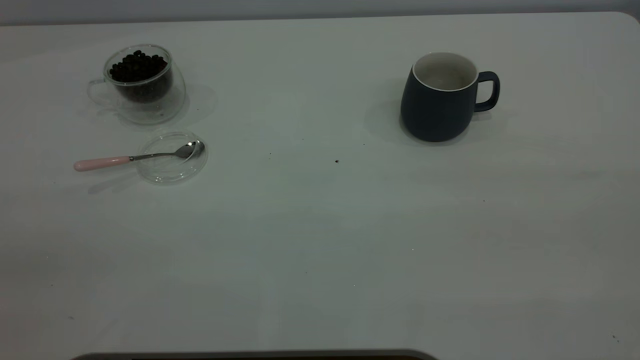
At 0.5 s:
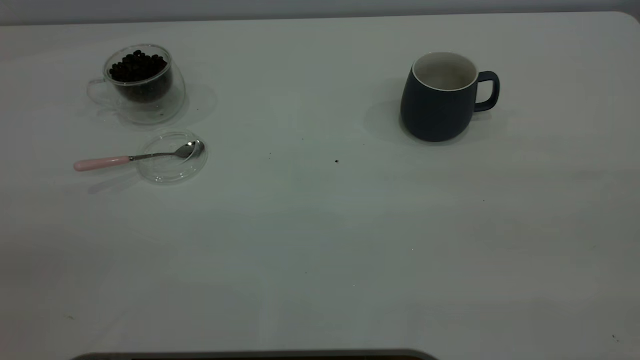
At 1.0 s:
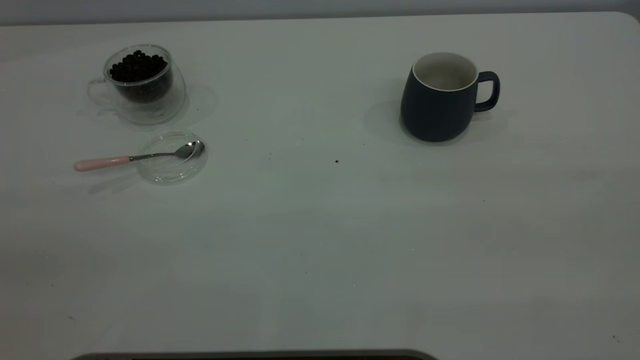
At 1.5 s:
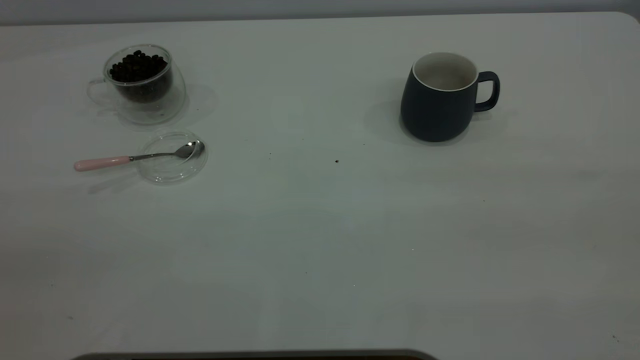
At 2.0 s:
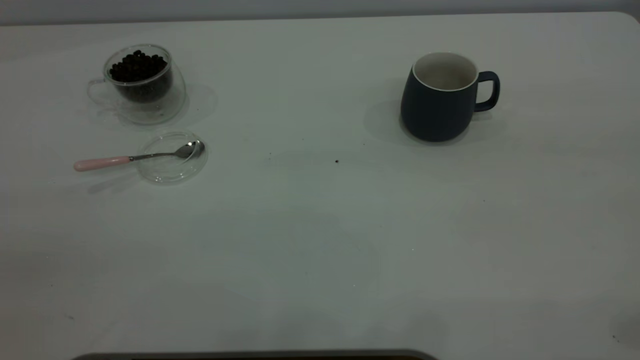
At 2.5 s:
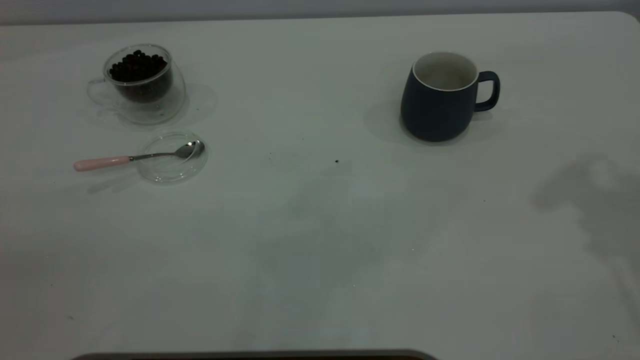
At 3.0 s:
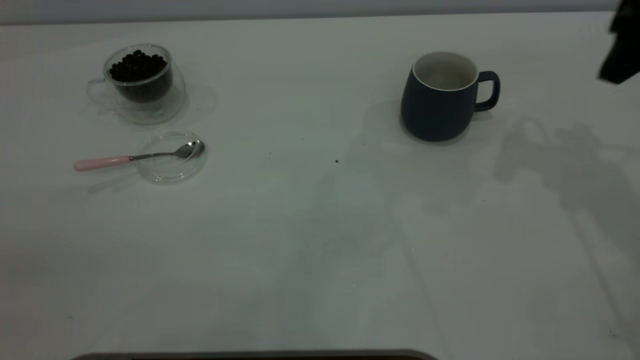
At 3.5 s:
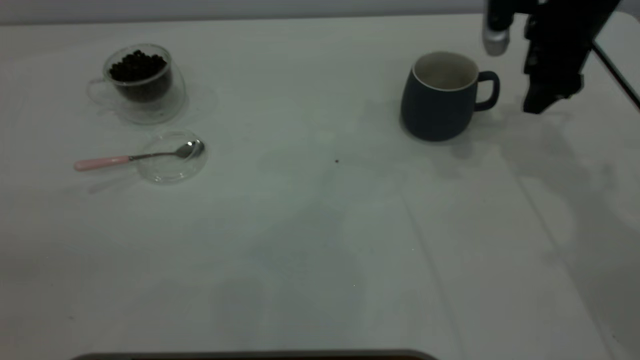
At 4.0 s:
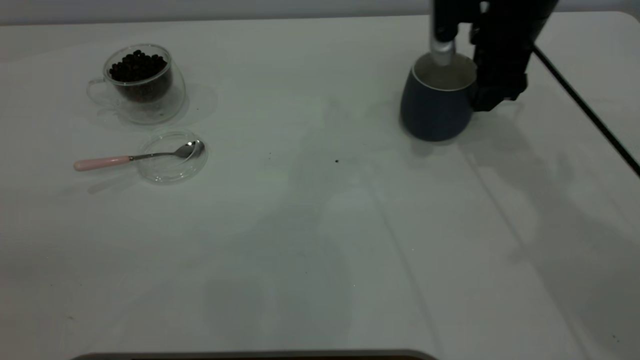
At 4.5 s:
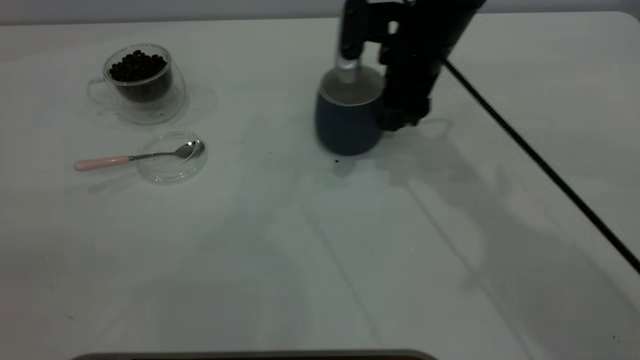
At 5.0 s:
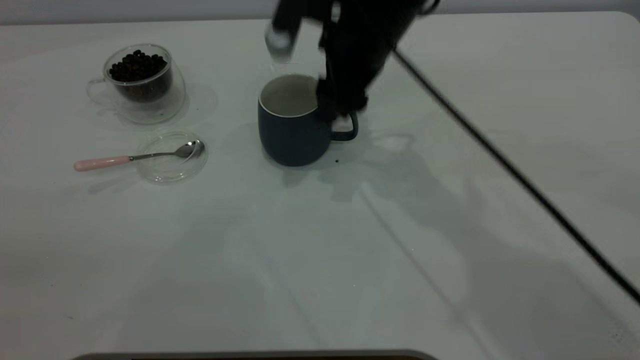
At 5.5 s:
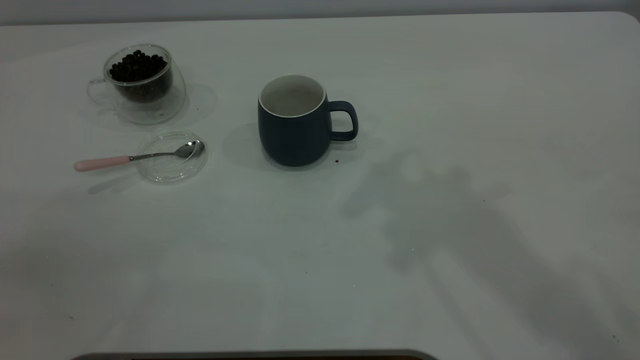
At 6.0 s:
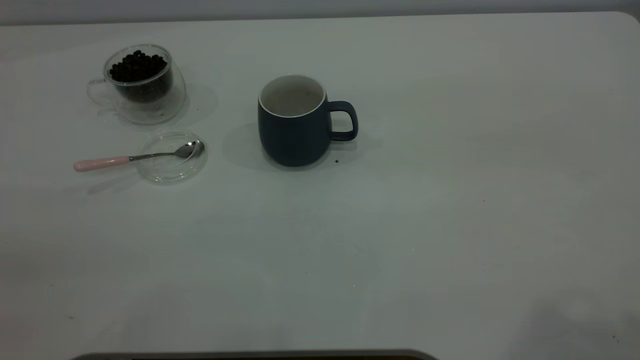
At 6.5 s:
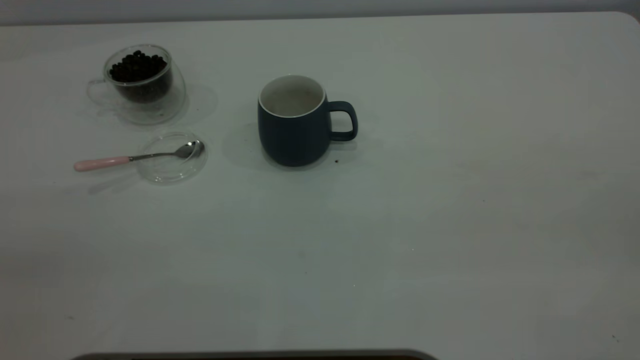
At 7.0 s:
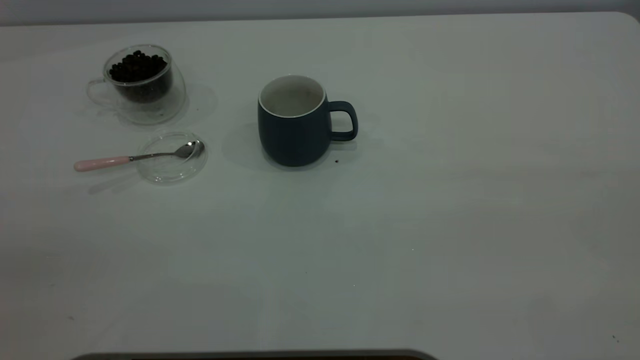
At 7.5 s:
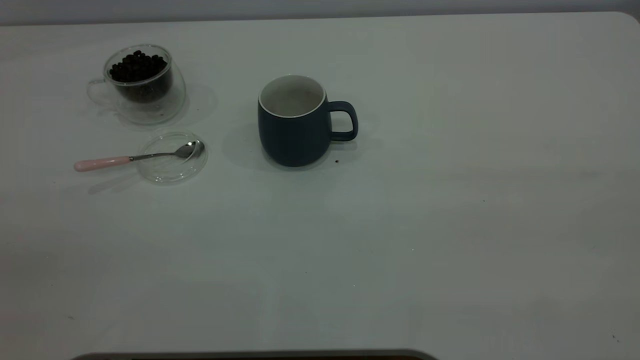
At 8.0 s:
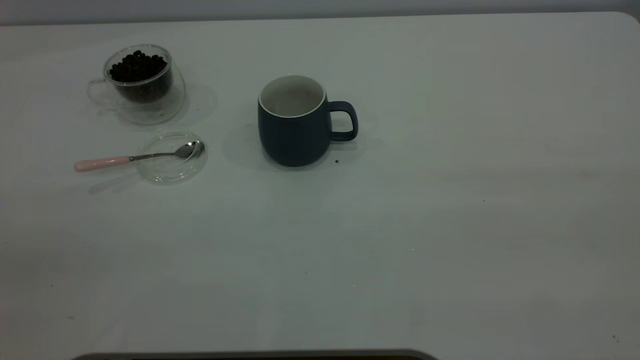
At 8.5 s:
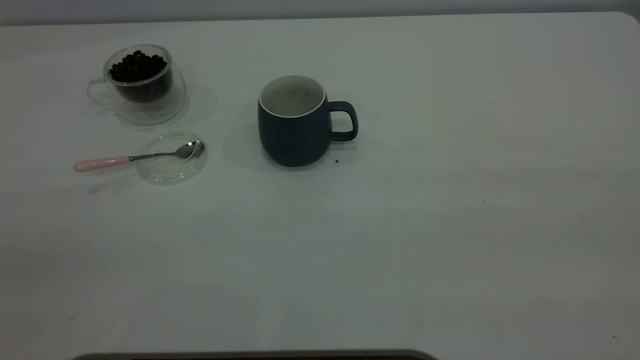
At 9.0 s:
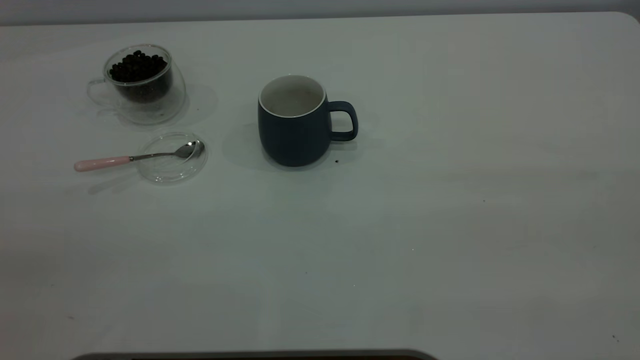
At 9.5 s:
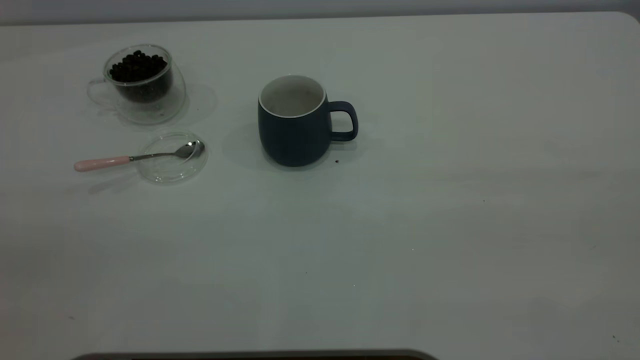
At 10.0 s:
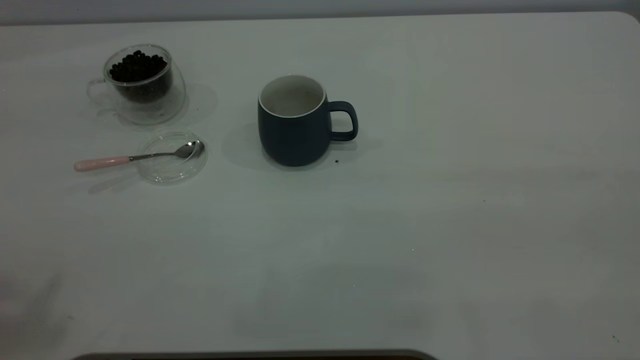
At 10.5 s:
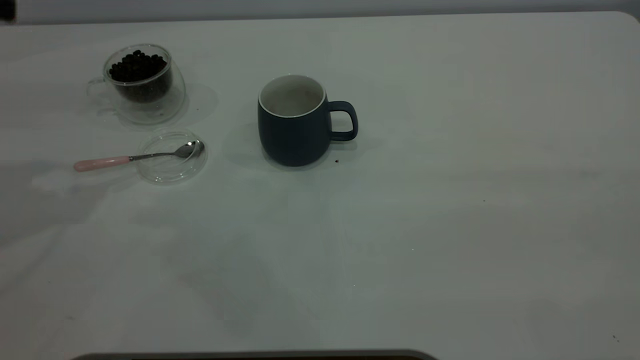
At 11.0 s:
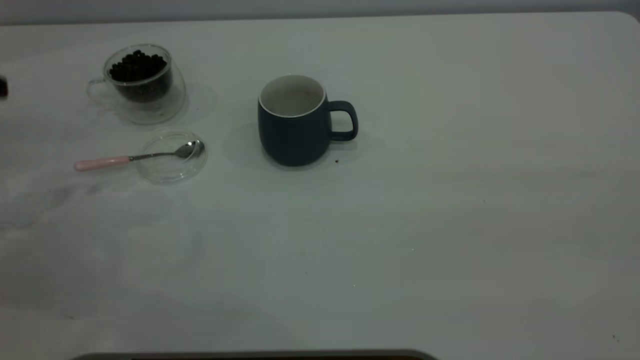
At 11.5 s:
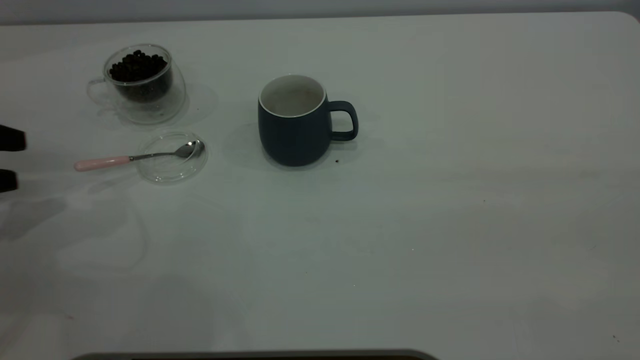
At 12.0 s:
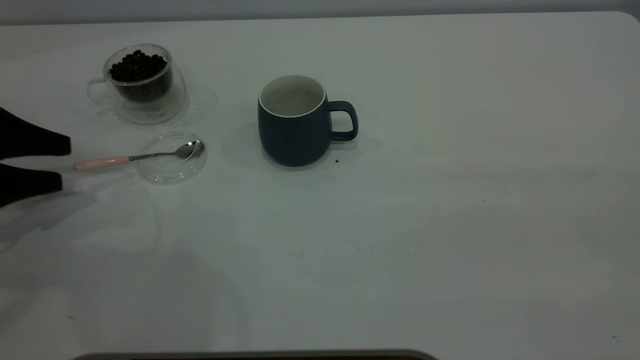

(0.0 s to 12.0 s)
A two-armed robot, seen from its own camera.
Task of the whole recording: the right gripper place the grey cup in the center of the table, the left gripper take the pink spoon from the cup lid and scoop out the coffee beans from the coffee cup and put them into the grey cup, the left gripper put the spoon back into the cup lid.
Step, 0.0 s - 5.0 s: Move the cup to the center of view.
2.0 s - 4.0 s: The right gripper moves forward and downward, approximately 40 cm.
4.0 s - 6.0 s: The right gripper heads backward and upward, covering roughly 50 cm.
10.0 s - 12.0 s: The left gripper heads downward, covering some 35 cm.

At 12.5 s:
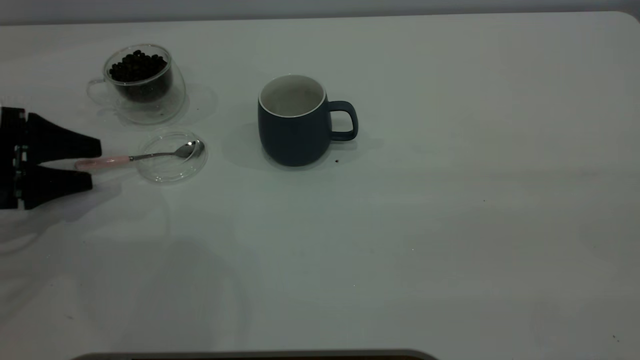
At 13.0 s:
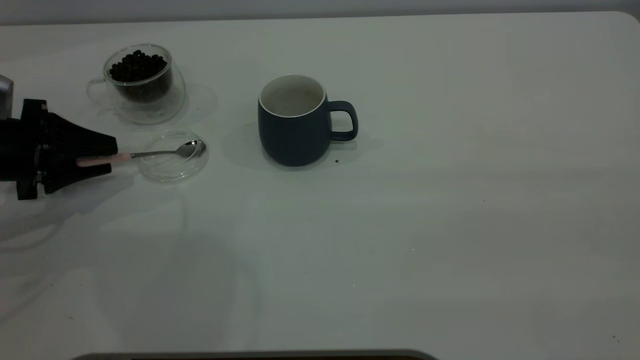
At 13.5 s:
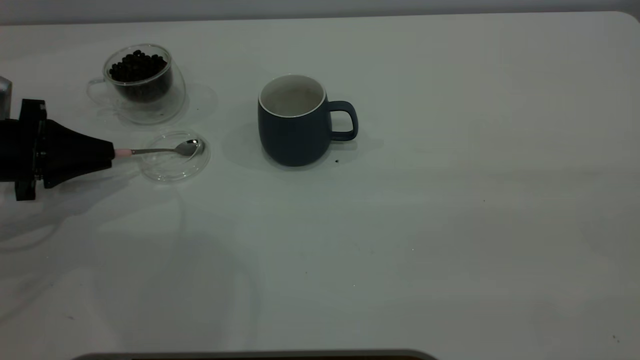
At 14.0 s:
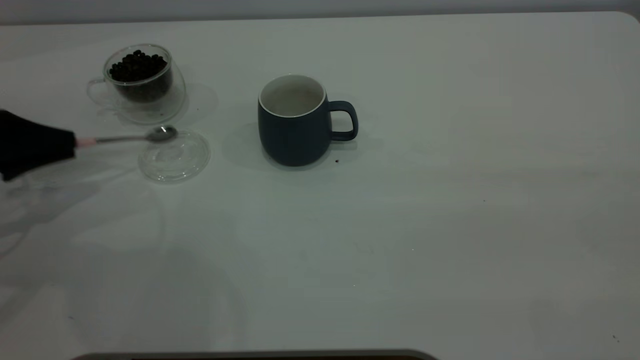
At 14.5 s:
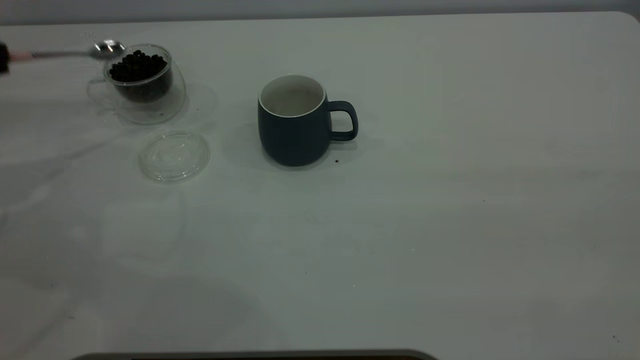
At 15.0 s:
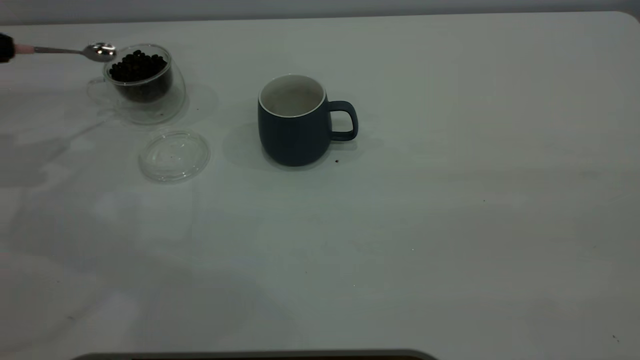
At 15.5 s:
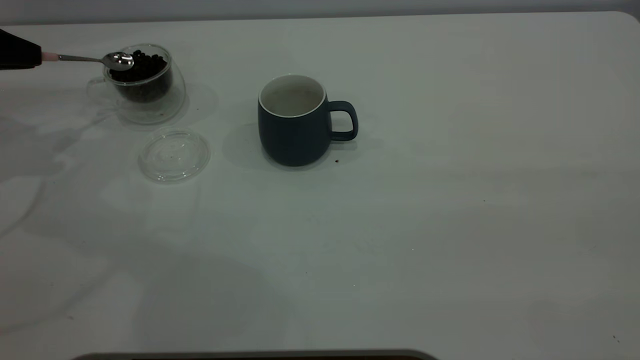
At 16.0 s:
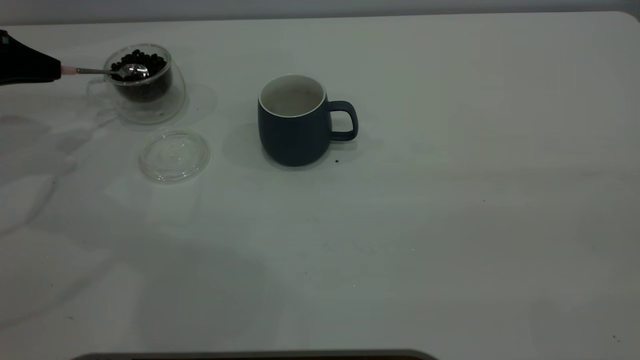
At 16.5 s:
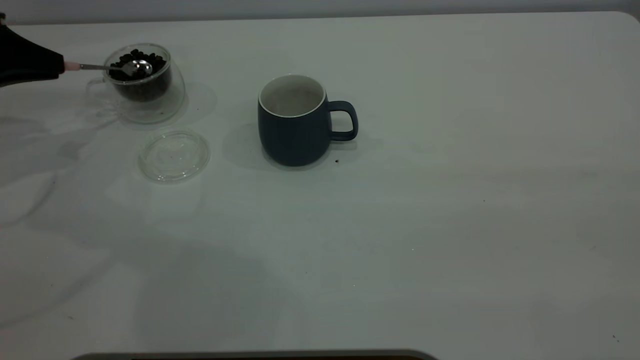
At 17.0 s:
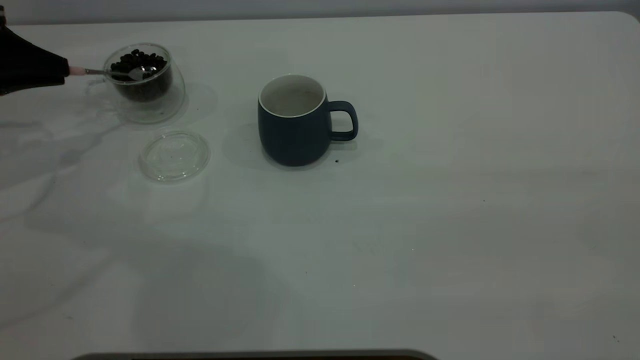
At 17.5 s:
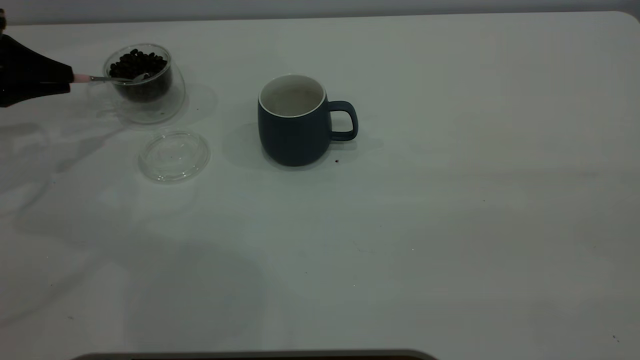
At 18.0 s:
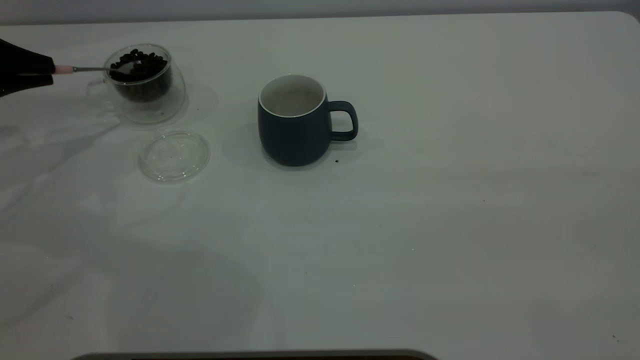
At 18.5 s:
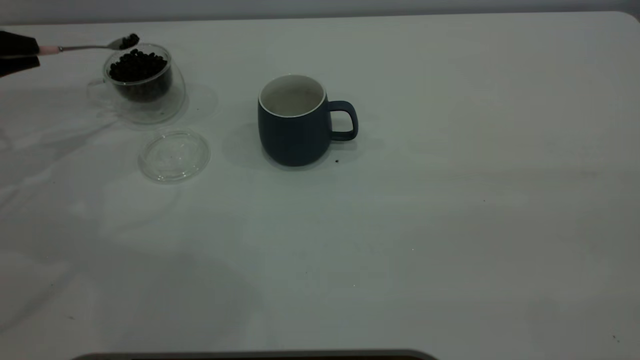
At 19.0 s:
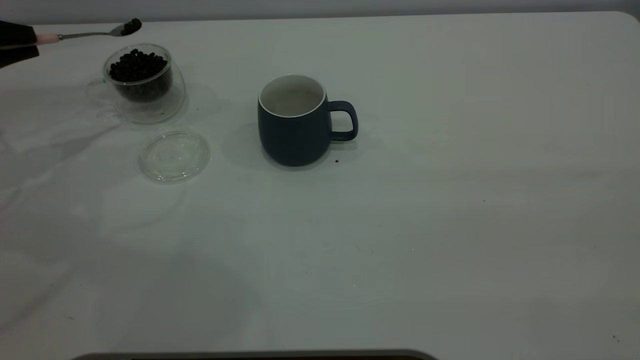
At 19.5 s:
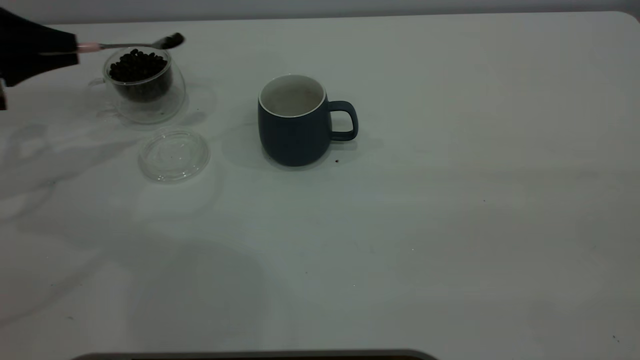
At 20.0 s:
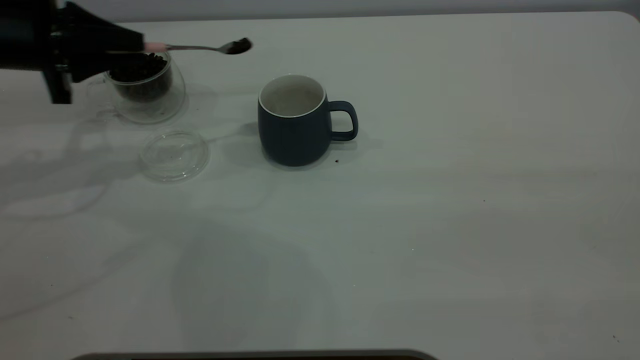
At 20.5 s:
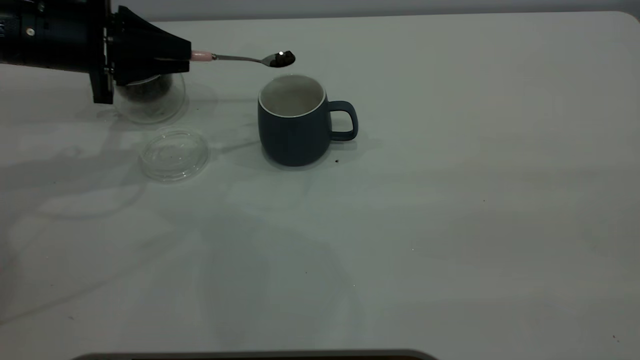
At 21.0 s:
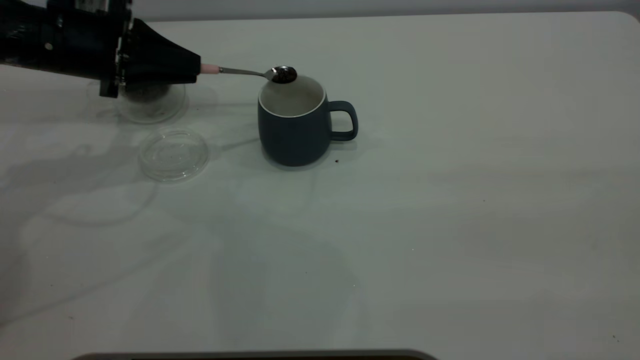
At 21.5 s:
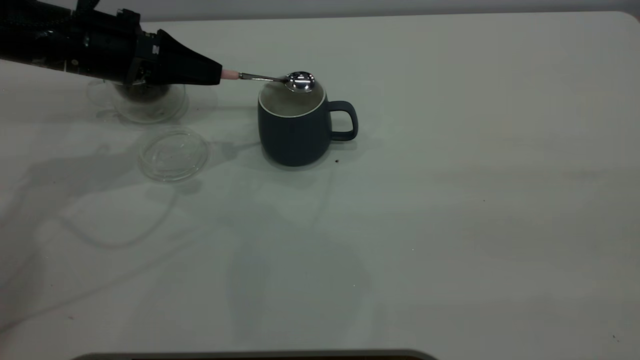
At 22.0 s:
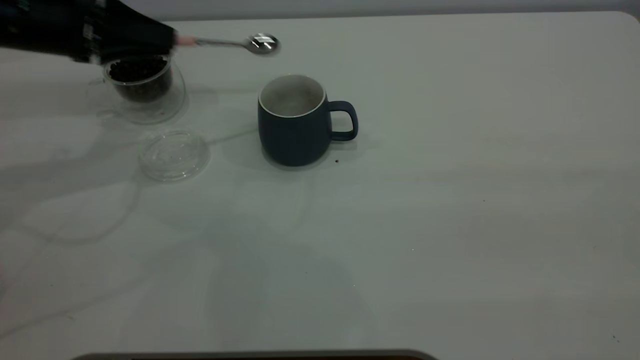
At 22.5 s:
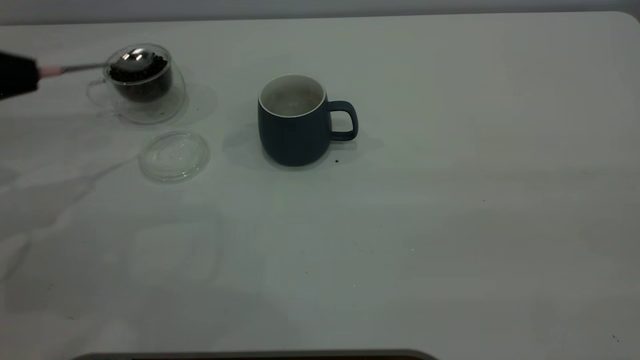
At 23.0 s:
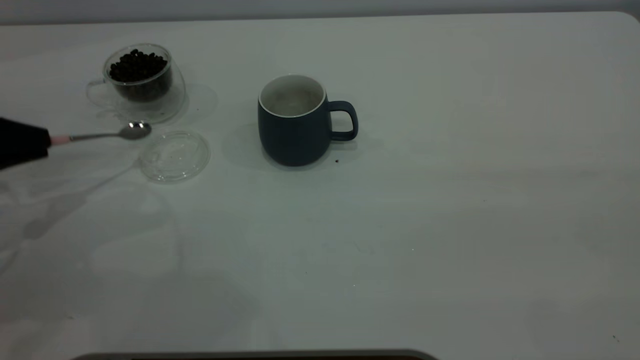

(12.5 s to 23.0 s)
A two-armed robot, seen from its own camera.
Task of the whole recording: the right gripper place the grey cup in the center of the table, the left gripper take the pink spoon from the cup lid and scoop out the coffee beans from the coffee cup and put them into the grey cup, the left gripper put the spoon back into the cup lid.
Step, 14.5 s - 21.5 s: Scoop a spoonful of beans into the cup.
12.5 s - 14.5 s: The left gripper heads upward and to the left, covering approximately 15 cm, and closes up.
14.5 s - 16.5 s: The left gripper ends up roughly 5 cm from where it was.
19.0 s - 21.0 s: The left gripper goes approximately 15 cm to the right.
21.0 s - 23.0 s: The left gripper moves to the left and backward, roughly 15 cm.
